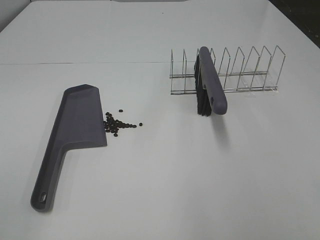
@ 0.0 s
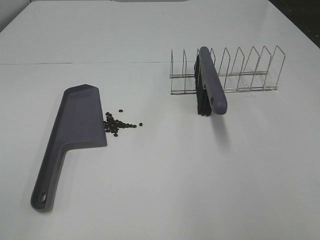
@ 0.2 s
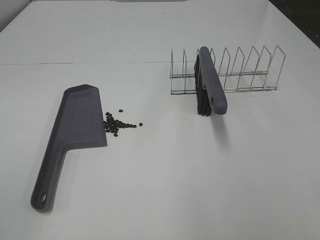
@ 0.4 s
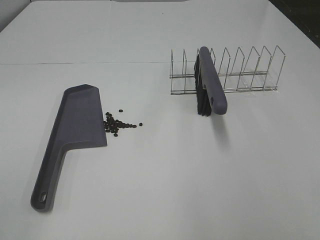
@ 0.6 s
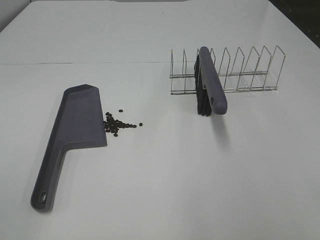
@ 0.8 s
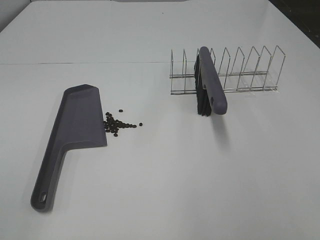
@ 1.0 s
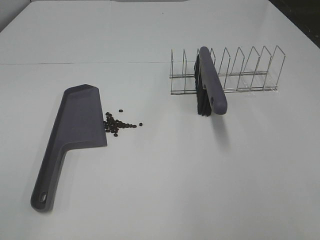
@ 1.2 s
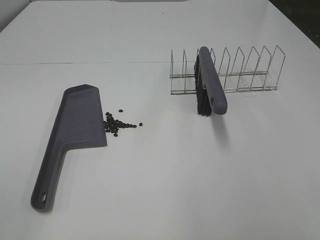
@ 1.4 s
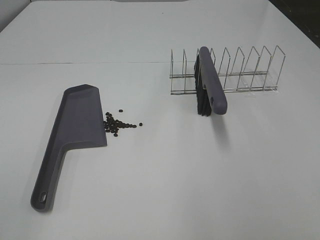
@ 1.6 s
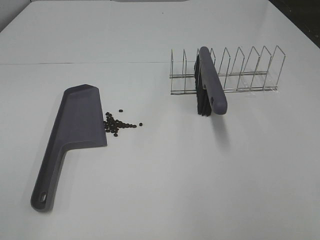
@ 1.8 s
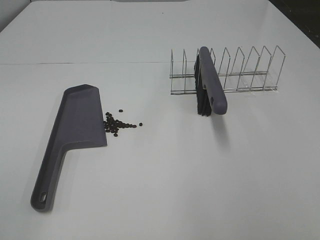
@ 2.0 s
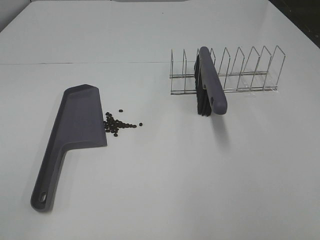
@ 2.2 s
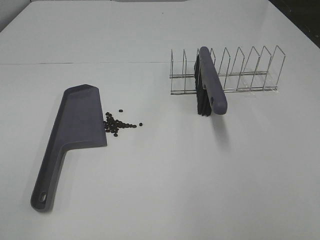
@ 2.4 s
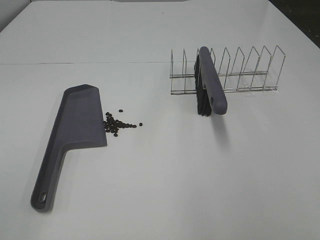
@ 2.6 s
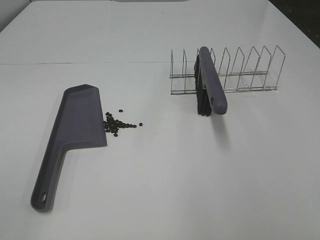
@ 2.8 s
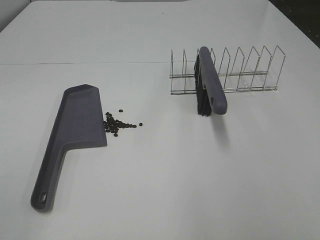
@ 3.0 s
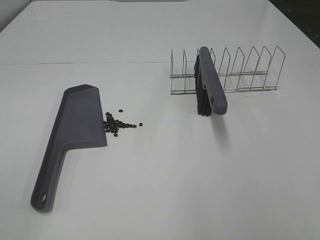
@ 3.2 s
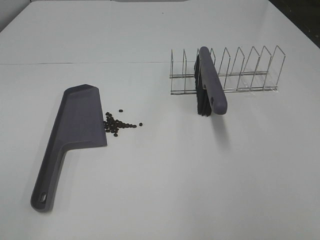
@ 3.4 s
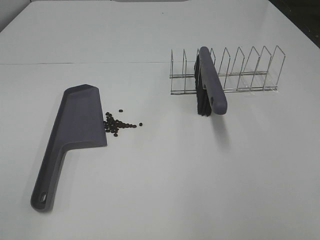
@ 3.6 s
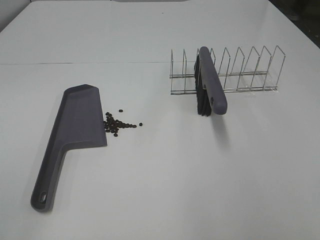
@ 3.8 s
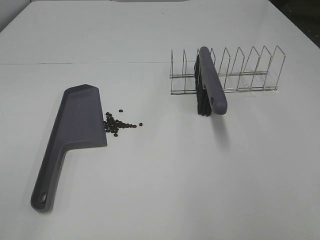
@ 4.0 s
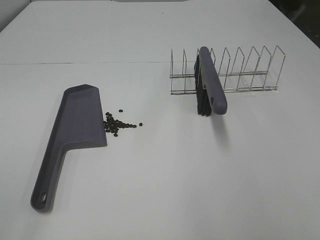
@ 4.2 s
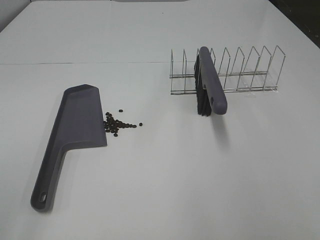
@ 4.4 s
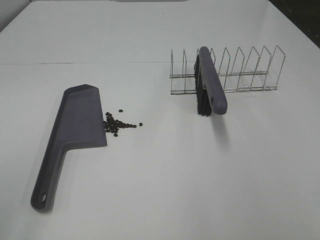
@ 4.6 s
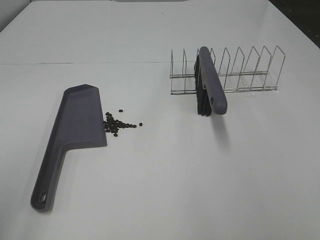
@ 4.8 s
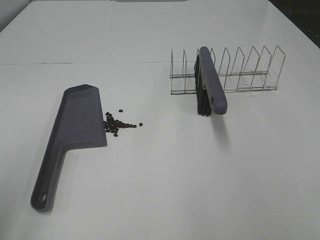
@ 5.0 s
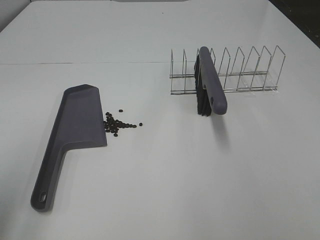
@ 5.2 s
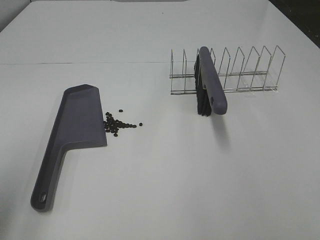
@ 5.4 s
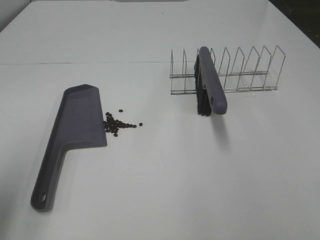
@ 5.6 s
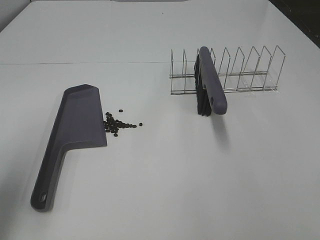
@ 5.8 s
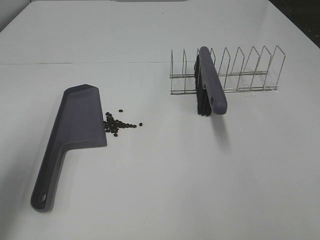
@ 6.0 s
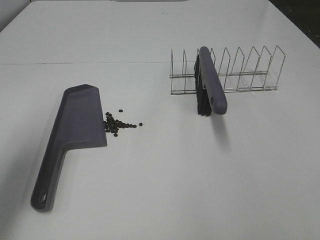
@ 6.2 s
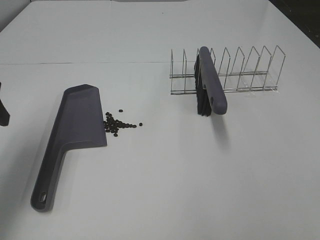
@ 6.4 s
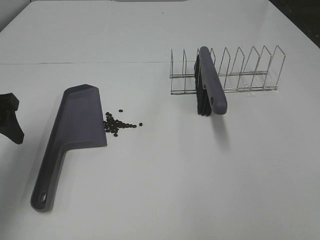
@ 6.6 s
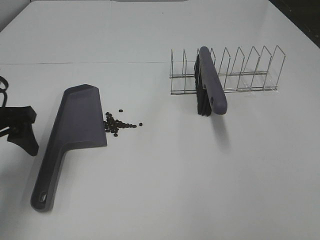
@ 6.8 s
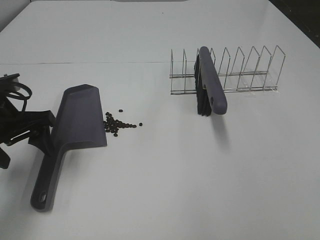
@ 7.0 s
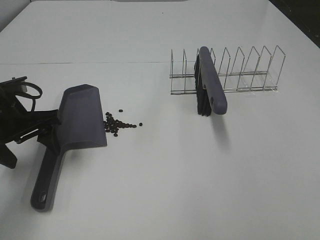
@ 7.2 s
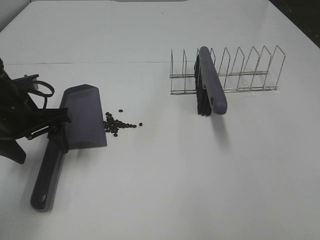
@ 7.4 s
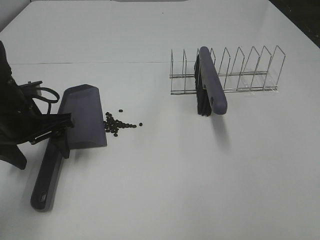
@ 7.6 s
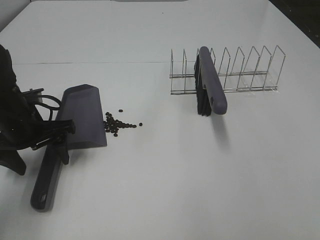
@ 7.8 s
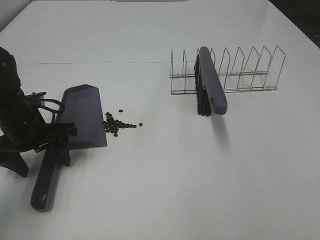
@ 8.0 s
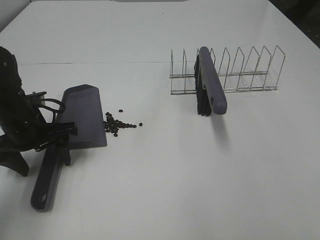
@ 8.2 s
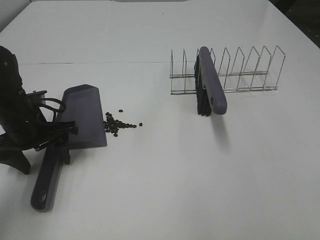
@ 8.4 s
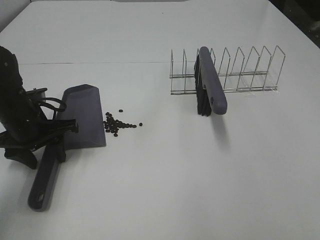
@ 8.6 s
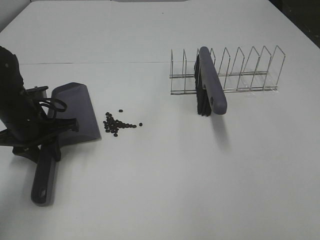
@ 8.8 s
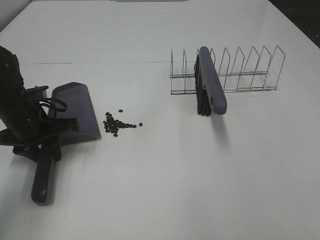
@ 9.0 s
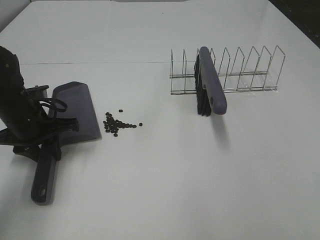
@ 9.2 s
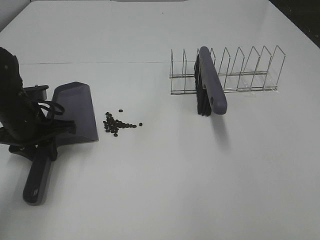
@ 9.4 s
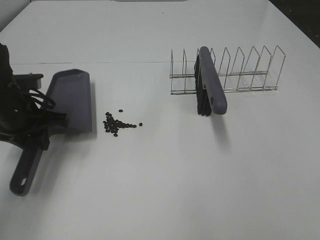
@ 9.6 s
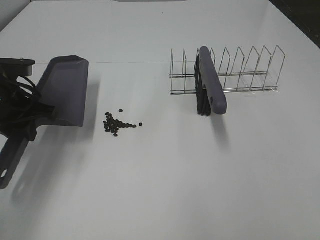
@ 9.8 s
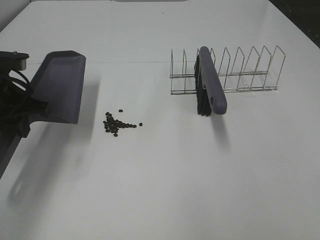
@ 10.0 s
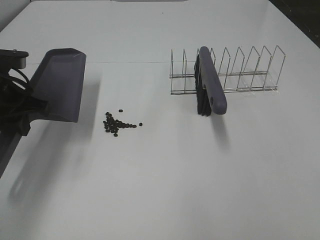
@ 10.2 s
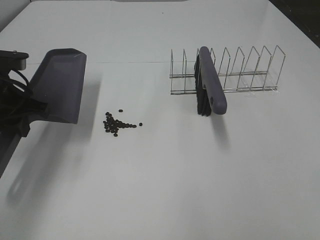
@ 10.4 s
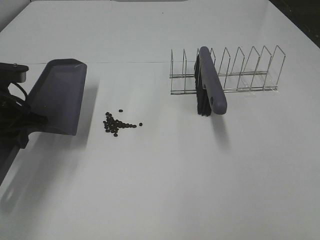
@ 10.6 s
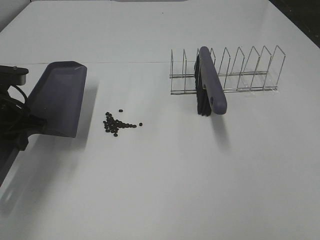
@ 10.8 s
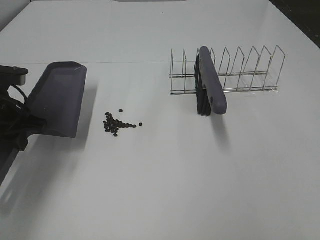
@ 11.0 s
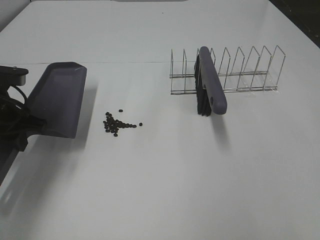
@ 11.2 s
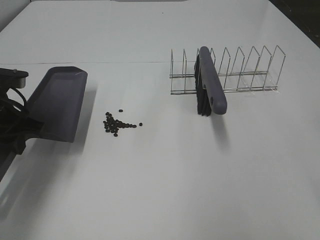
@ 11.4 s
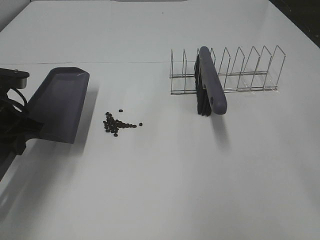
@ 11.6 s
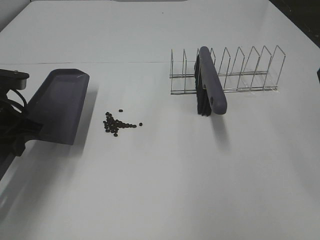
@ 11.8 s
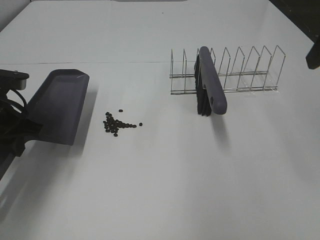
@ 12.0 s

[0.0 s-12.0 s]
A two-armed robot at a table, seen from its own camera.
Task of the whole recording: Sweep Coffee Bean.
Step, 0.0 to 9.2 s: Left hand: grab the dustpan.
0.0 to 3.0 s: The two grippers keep their place.
4.4 to 6.0 s: The left gripper goes about 20 cm forward.
6.0 to 7.6 s: The left gripper shifts approximately 20 cm downward, forward and to the right.
7.6 to 9.0 s: The left gripper closes its fingers.
9.0 to 10.4 s: The left gripper travels upward by roughly 10 cm.

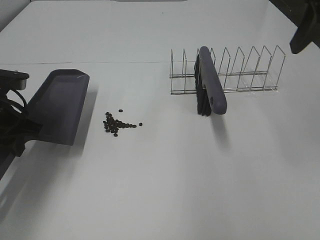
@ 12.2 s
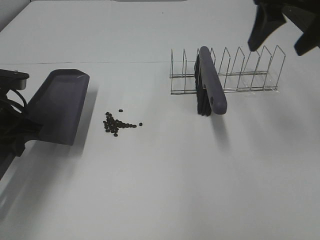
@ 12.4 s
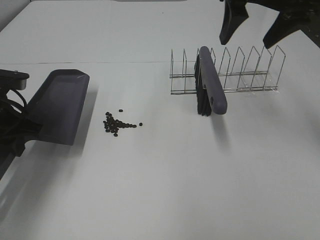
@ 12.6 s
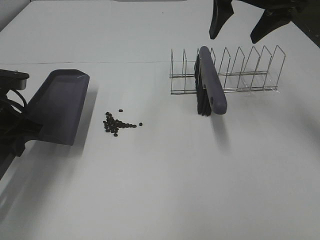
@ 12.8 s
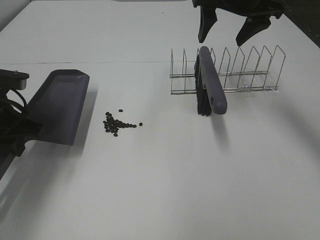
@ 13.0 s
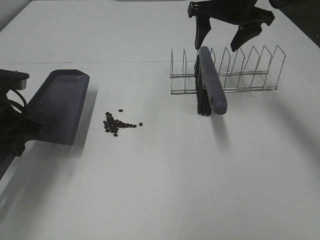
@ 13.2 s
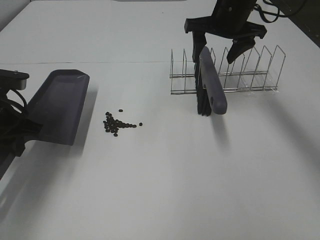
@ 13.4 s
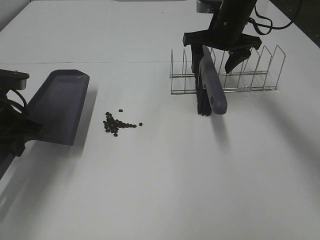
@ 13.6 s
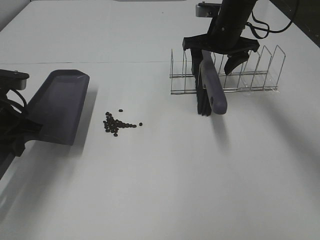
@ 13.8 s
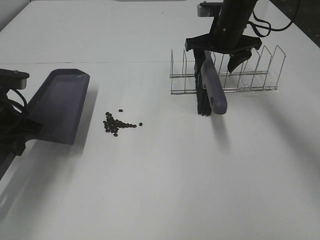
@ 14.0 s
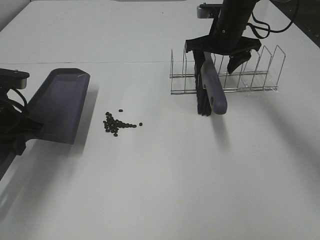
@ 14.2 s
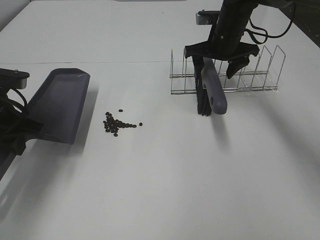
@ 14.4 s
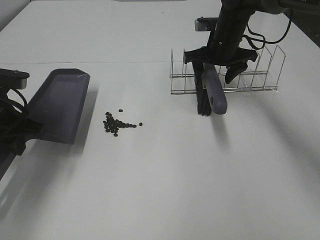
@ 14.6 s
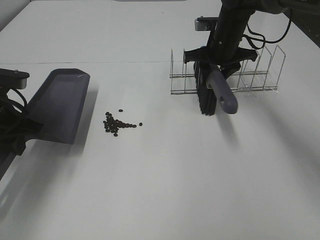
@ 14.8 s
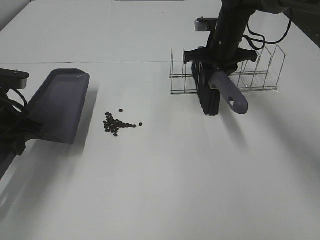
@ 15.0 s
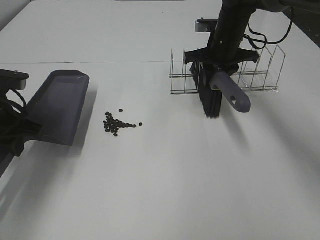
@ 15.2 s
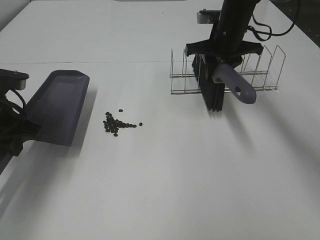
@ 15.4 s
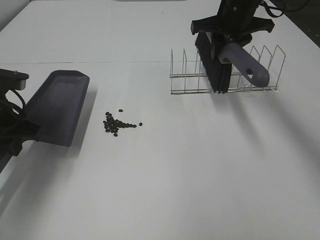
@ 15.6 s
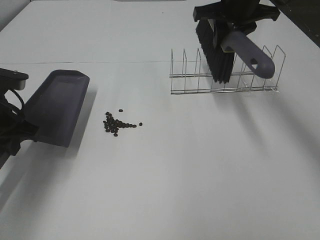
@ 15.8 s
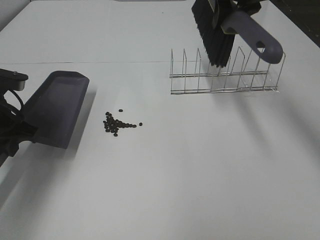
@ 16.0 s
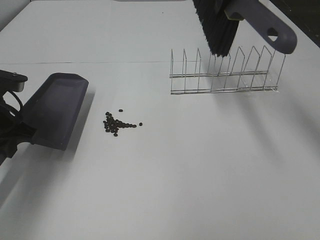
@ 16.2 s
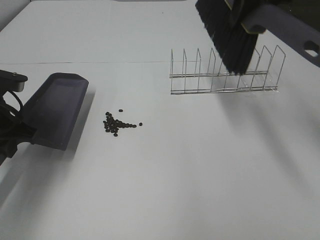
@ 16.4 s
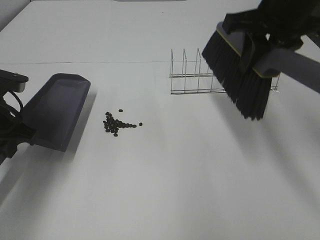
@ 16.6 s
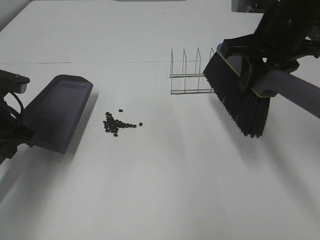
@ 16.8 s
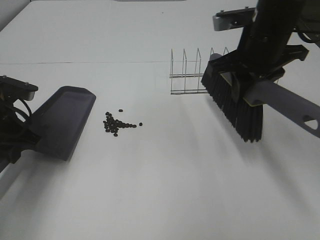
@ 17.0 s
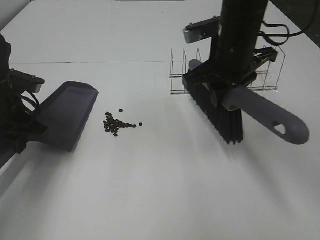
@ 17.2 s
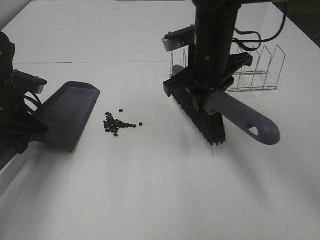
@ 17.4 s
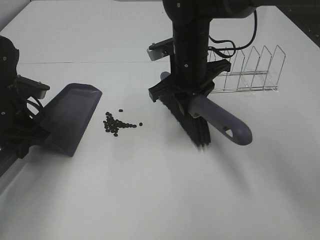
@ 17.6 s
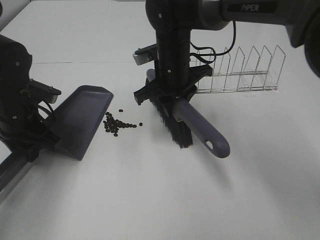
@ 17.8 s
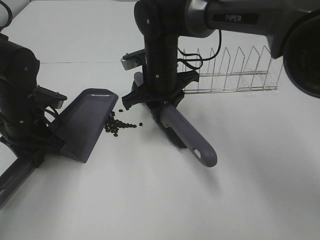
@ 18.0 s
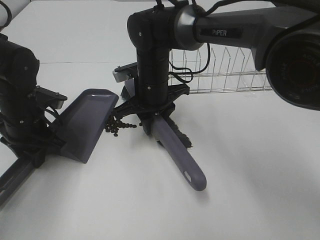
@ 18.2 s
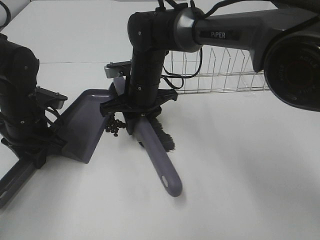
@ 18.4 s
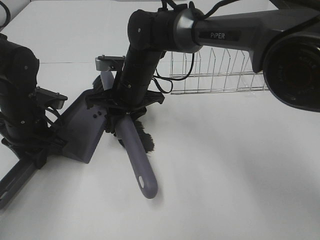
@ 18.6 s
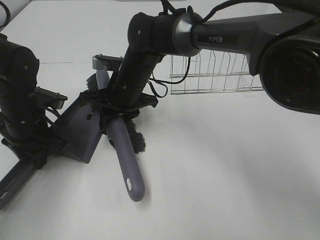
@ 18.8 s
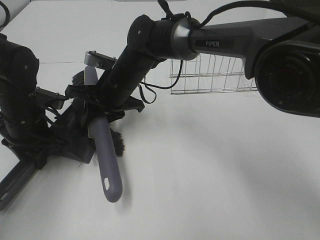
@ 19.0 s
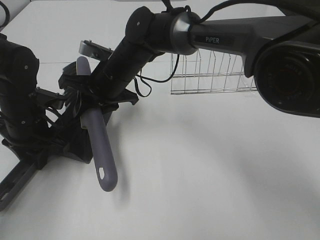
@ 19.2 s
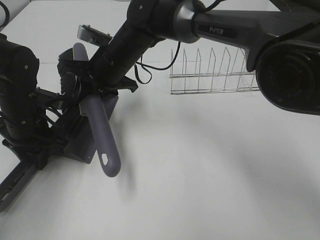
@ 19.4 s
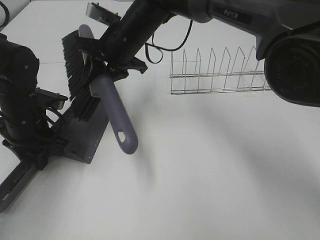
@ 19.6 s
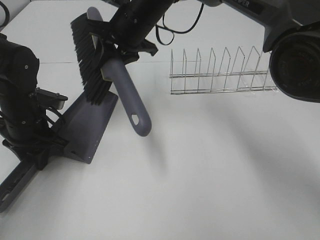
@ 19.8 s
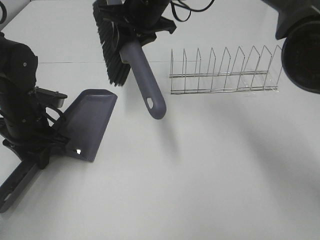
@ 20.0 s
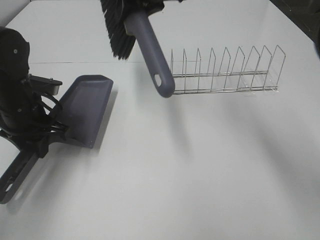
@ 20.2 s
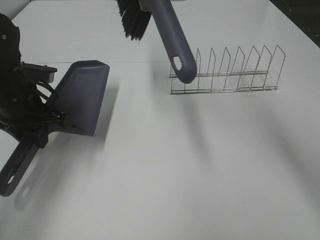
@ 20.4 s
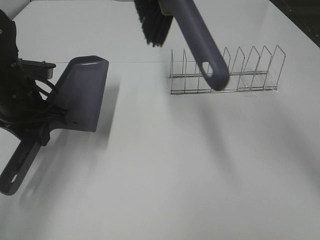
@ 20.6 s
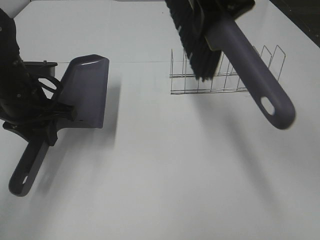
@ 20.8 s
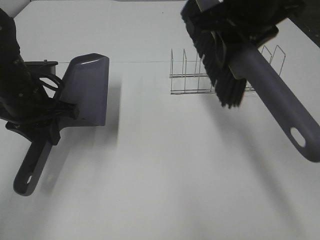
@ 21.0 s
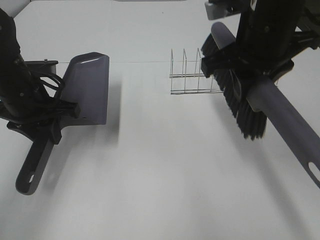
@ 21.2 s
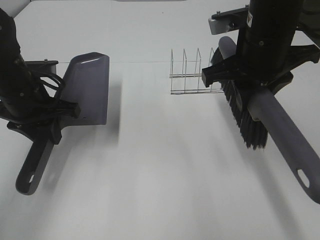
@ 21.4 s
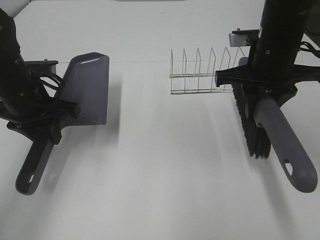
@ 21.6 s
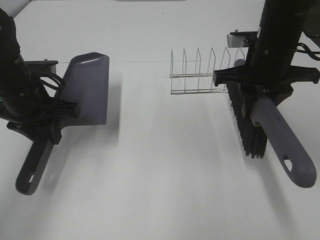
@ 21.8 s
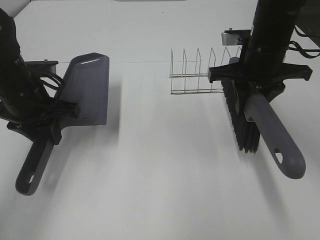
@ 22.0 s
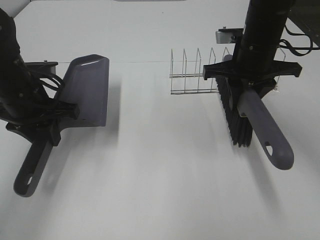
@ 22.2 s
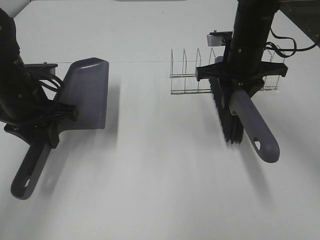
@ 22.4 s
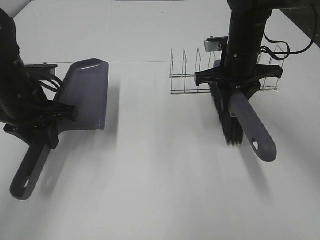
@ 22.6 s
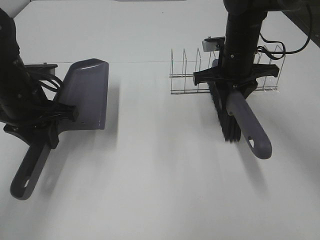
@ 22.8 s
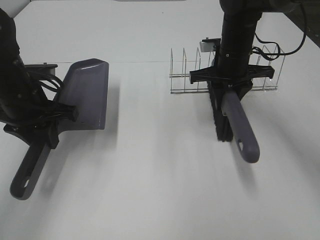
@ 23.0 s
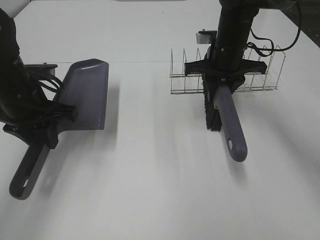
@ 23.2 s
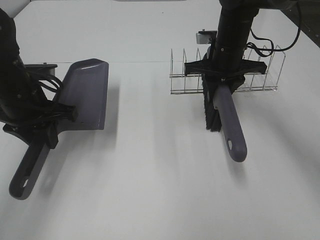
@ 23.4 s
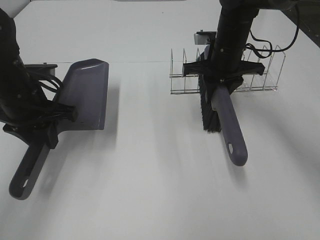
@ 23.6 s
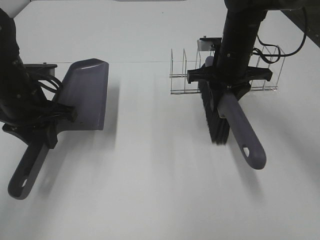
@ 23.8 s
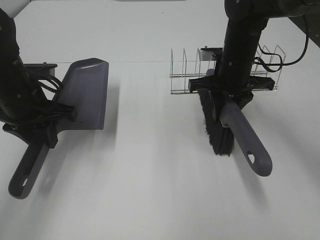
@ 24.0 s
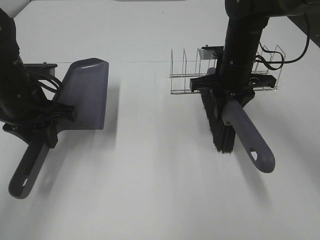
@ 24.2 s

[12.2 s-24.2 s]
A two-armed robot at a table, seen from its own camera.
Task of the whole recording: Sweep Coffee Bean.
Step, 12.2 to 15.0 s: Right hand:grab the broom.
Step, 15.2 to 19.4 s: Right hand:sweep the coffee beans into the dustpan.
12.2 to 13.8 s: The right gripper moves forward, downward and to the left, about 25 cm.
13.8 to 15.2 s: The right gripper closes.
15.2 to 16.6 s: The right gripper heads backward and upward, covering approximately 20 cm.
16.6 to 18.2 s: The left gripper moves downward, approximately 5 cm; the right gripper shifts about 25 cm to the left and downward.
18.2 to 19.8 s: The right gripper is displaced upward and forward by about 10 cm.
19.8 to 21.2 s: The left gripper travels upward by approximately 5 cm; the right gripper shifts some 20 cm to the right and backward.
21.2 to 22.6 s: The right gripper moves forward and downward, approximately 15 cm.
22.6 to 24.2 s: The grippers move only a little.
